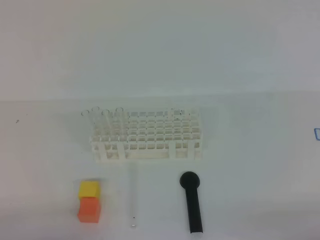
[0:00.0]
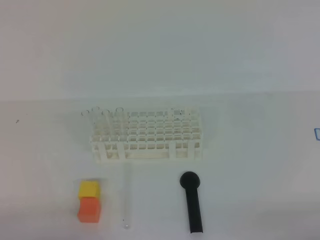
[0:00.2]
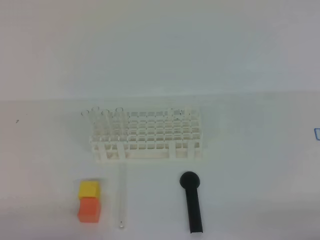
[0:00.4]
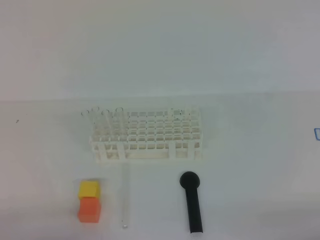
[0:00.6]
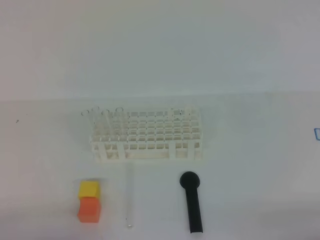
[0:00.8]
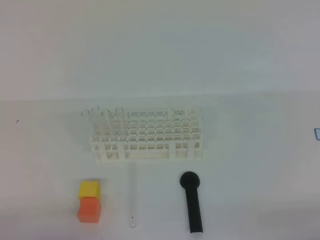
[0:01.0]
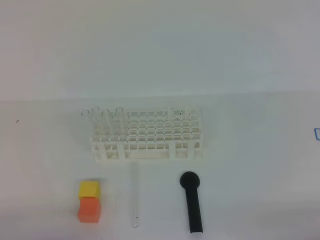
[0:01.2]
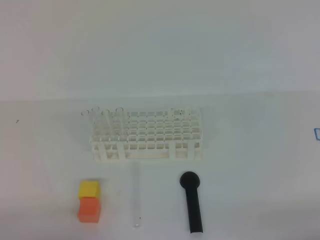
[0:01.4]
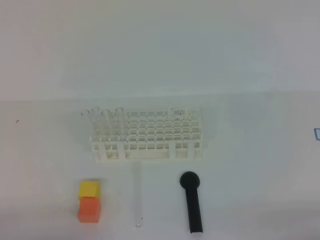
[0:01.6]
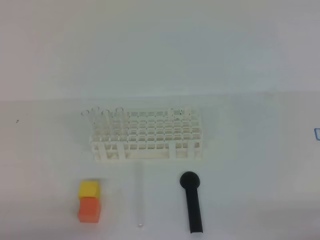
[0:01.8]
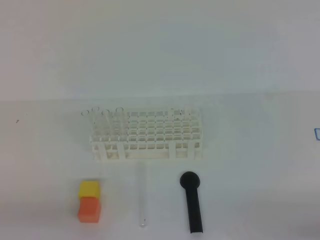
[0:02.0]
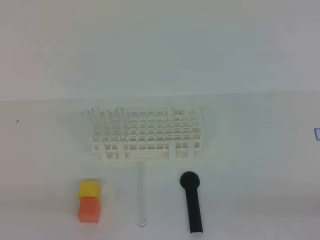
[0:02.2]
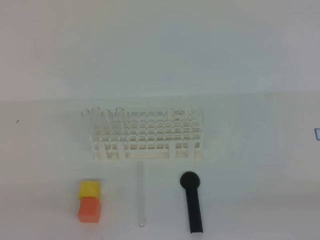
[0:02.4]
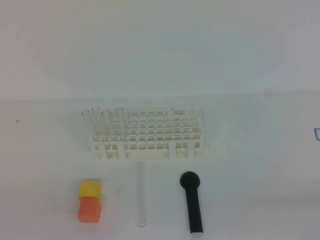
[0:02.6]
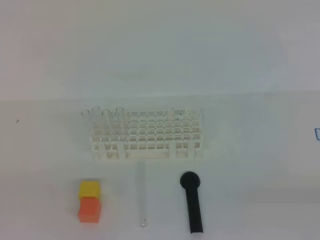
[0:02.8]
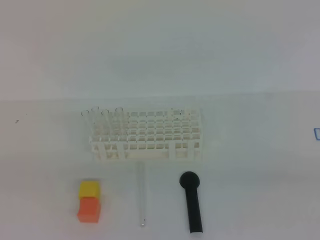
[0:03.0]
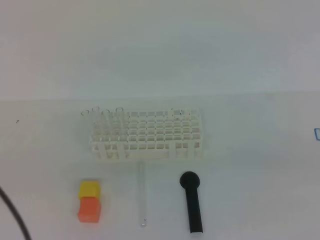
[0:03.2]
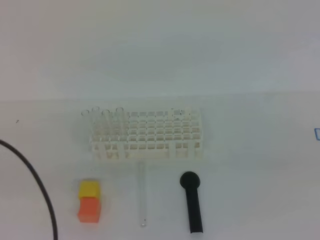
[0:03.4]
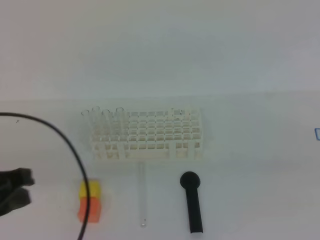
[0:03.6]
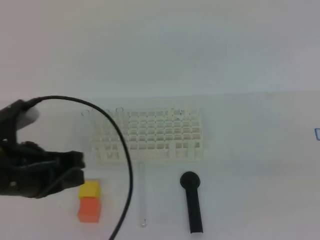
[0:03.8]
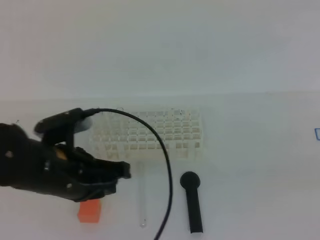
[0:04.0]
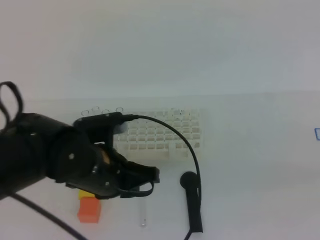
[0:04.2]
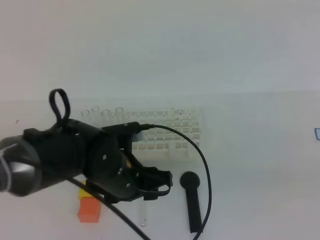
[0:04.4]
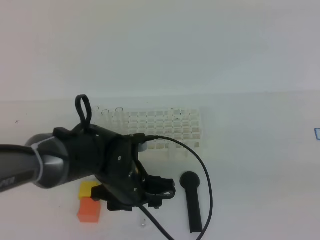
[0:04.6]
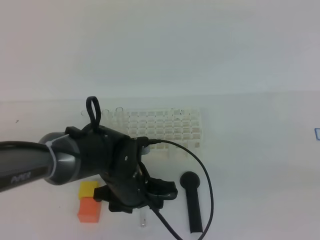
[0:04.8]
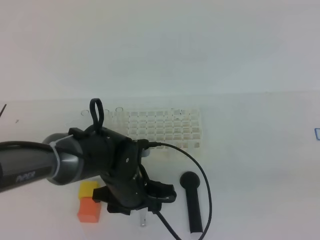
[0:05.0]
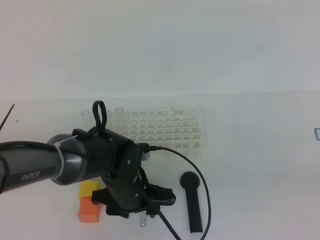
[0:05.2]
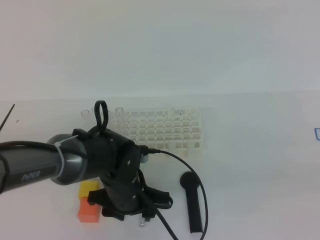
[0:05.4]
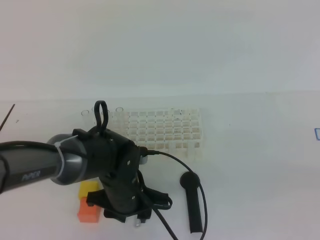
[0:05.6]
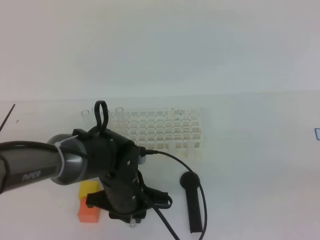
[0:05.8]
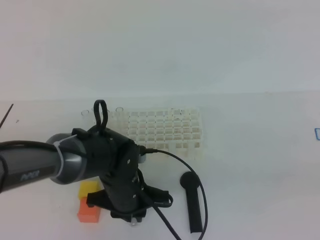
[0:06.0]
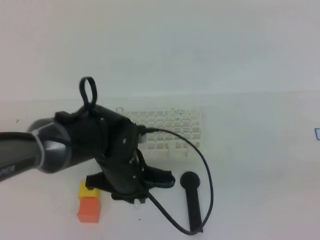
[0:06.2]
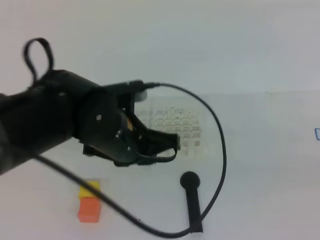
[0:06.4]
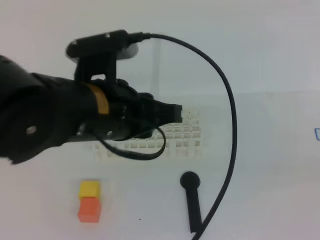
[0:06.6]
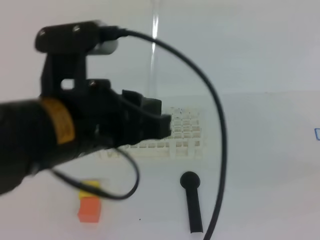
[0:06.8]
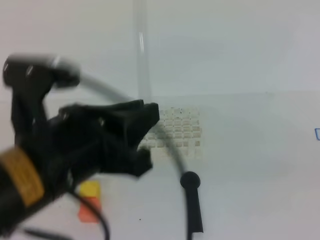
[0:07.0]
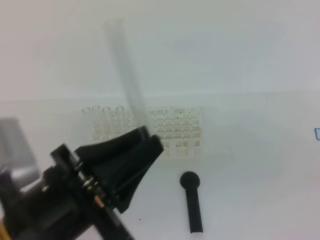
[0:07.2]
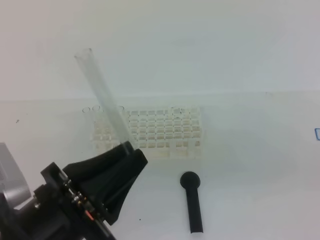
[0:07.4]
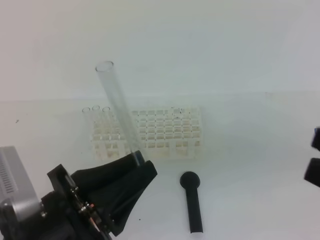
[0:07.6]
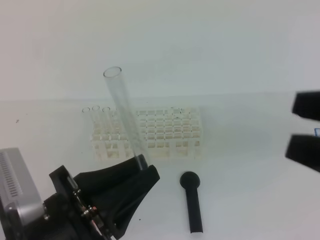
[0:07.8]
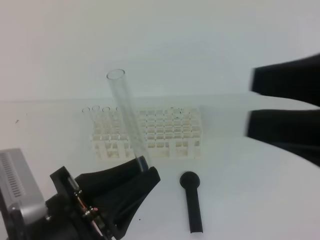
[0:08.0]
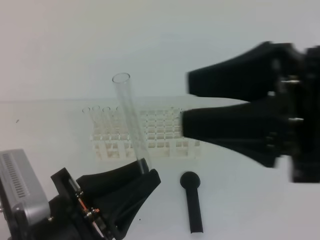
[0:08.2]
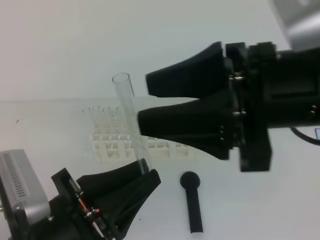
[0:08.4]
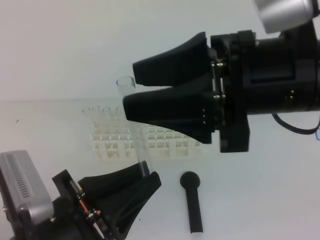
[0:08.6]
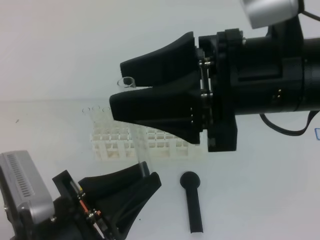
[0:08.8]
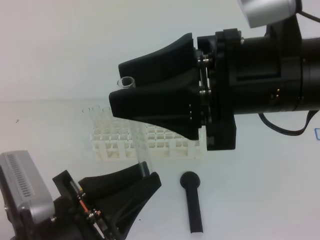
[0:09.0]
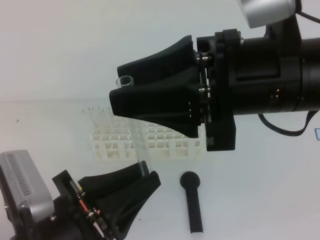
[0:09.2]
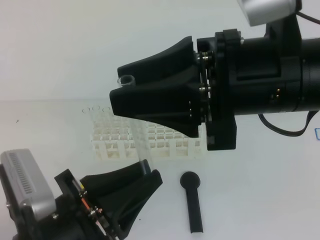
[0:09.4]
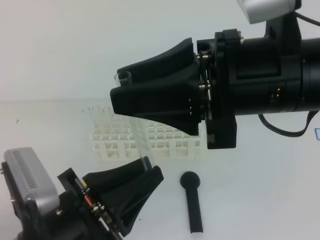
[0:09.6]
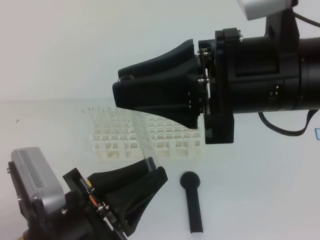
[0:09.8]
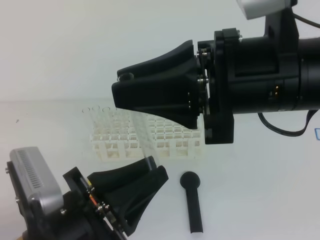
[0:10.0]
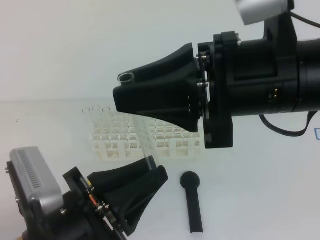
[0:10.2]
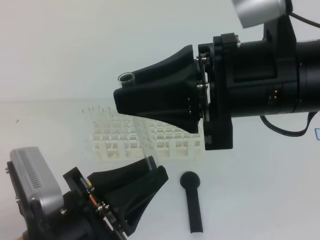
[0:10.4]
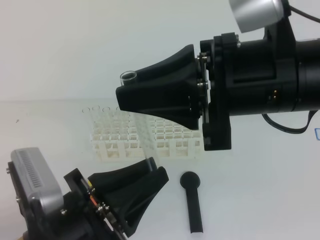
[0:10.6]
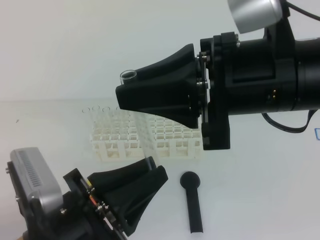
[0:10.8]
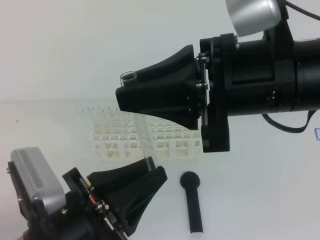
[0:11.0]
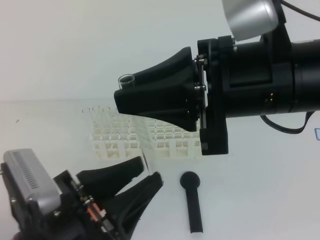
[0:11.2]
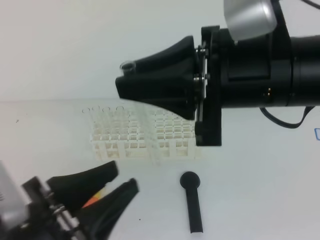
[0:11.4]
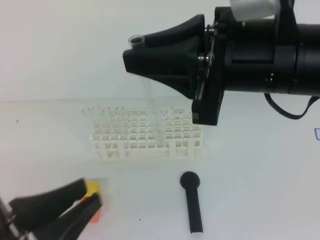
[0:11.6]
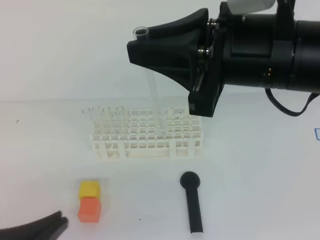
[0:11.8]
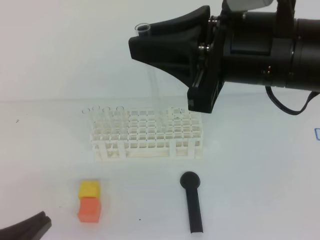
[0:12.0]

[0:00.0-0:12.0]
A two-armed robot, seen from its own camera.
0:00.0 to 0:01.6: Neither gripper changes place.
0:03.0 to 0:04.4: The right gripper changes place by approximately 5 cm. The left gripper shifts roughly 30 cm to the right, forward and downward, and opens its fingers.
0:04.4 to 0:06.0: The left gripper shifts some 5 cm downward, and closes.
0:06.0 to 0:07.6: The right gripper is displaced to the left by roughly 5 cm, and opens. The left gripper is displaced backward, upward and to the left by some 25 cm.
0:07.6 to 0:09.0: The right gripper heads to the left and forward, covering about 20 cm.
0:09.0 to 0:10.4: The right gripper closes.
0:10.4 to 0:12.0: The left gripper goes about 10 cm to the left, and opens, then closes once more.

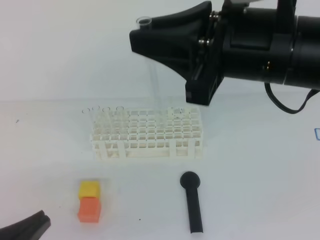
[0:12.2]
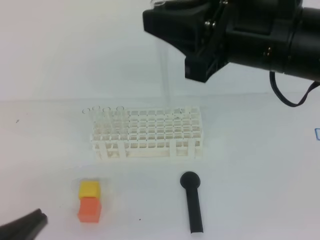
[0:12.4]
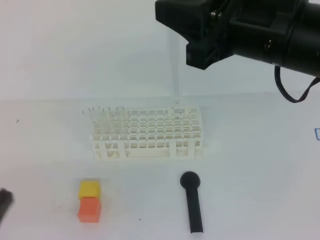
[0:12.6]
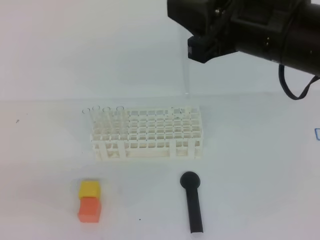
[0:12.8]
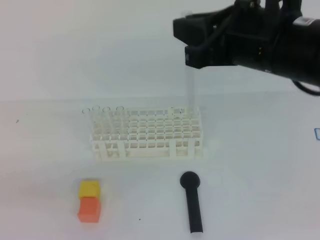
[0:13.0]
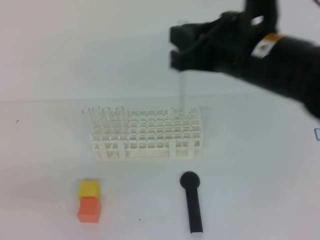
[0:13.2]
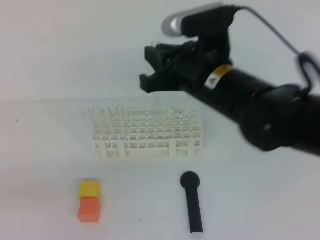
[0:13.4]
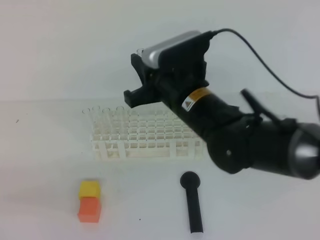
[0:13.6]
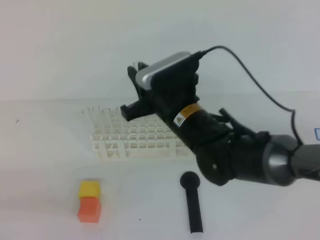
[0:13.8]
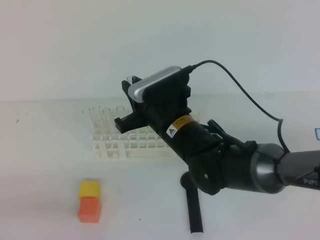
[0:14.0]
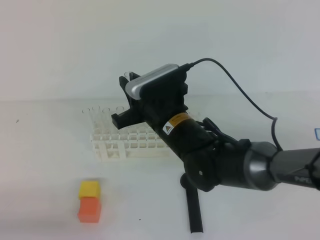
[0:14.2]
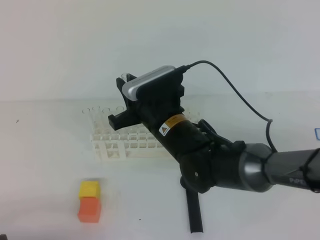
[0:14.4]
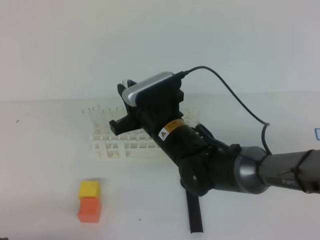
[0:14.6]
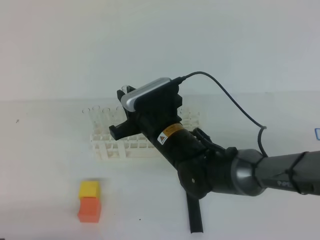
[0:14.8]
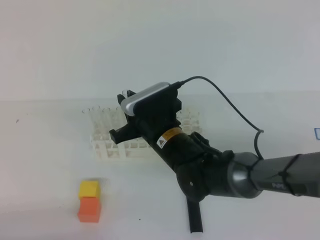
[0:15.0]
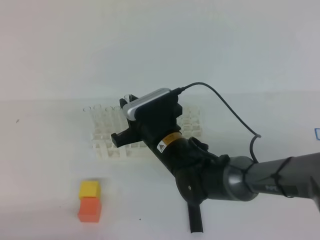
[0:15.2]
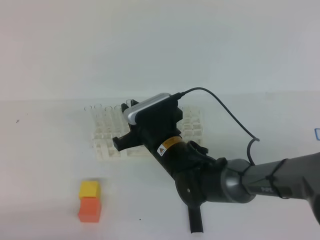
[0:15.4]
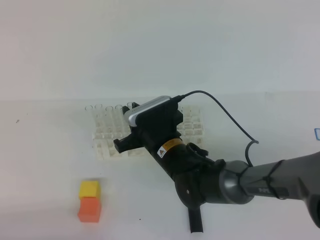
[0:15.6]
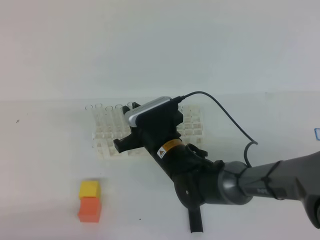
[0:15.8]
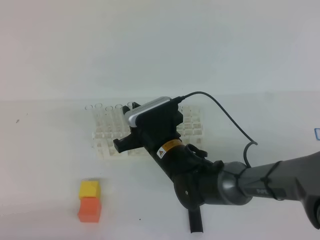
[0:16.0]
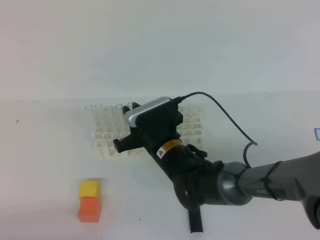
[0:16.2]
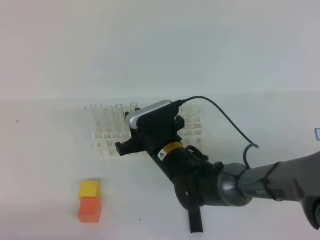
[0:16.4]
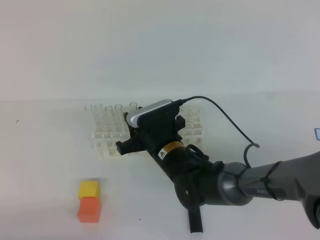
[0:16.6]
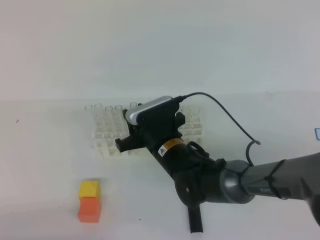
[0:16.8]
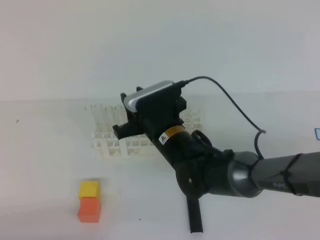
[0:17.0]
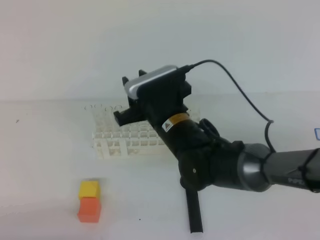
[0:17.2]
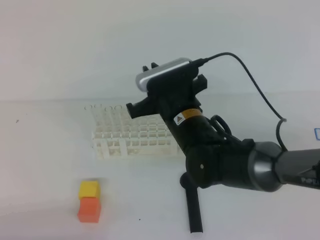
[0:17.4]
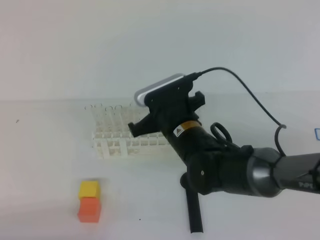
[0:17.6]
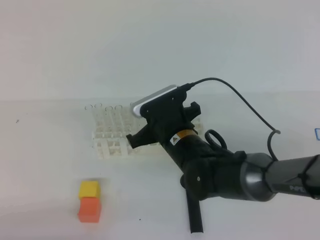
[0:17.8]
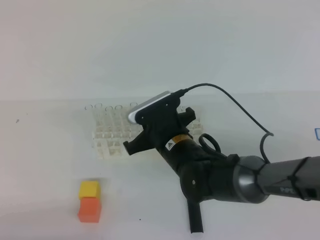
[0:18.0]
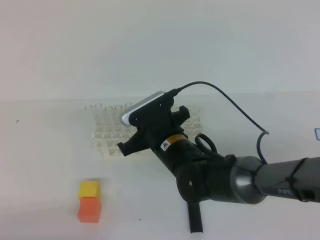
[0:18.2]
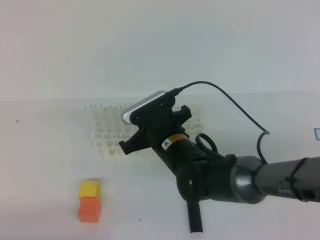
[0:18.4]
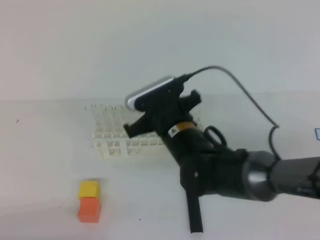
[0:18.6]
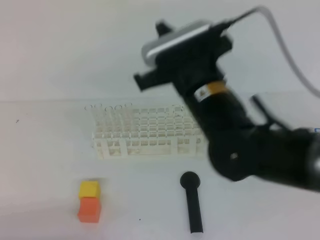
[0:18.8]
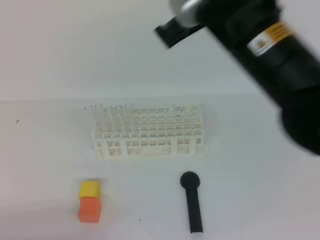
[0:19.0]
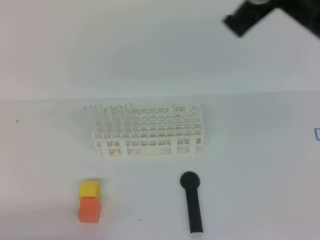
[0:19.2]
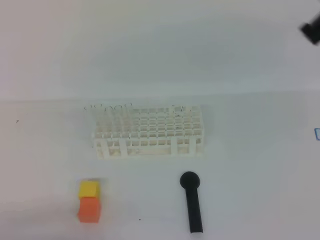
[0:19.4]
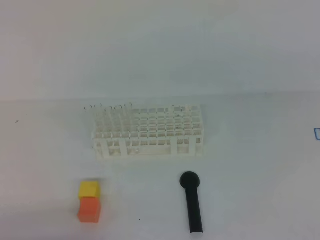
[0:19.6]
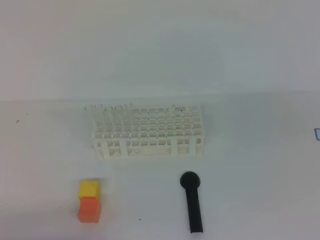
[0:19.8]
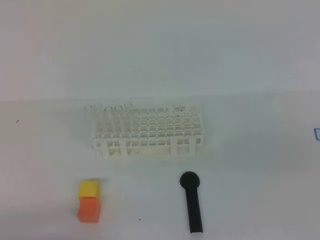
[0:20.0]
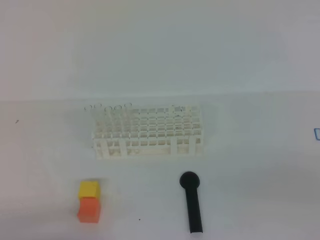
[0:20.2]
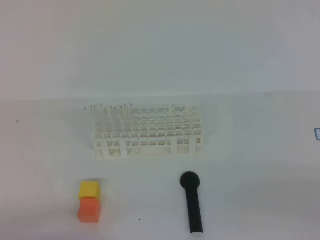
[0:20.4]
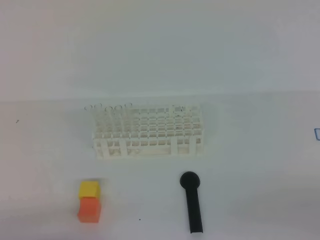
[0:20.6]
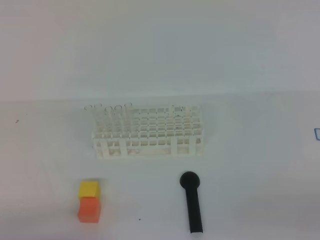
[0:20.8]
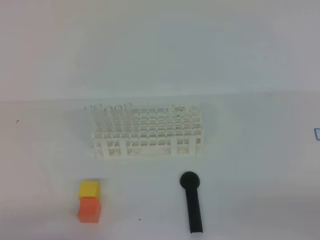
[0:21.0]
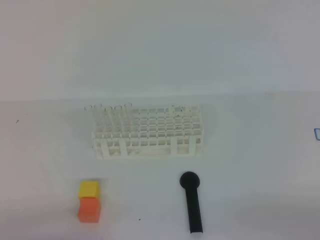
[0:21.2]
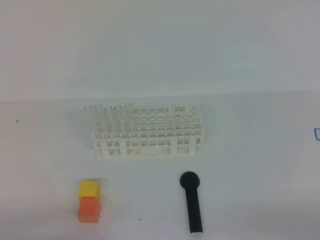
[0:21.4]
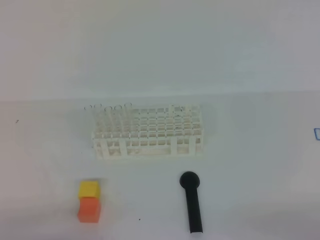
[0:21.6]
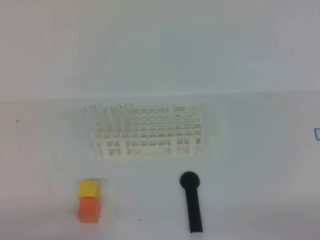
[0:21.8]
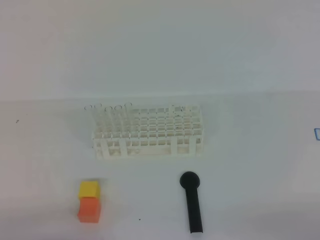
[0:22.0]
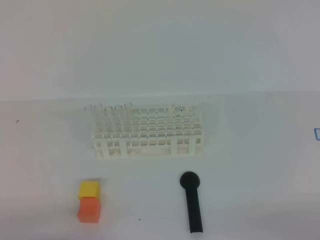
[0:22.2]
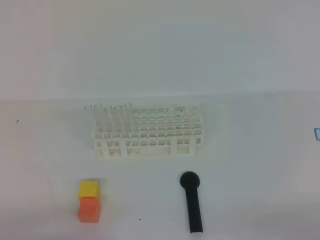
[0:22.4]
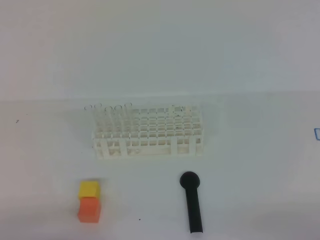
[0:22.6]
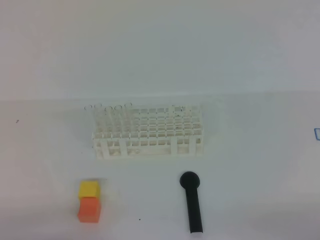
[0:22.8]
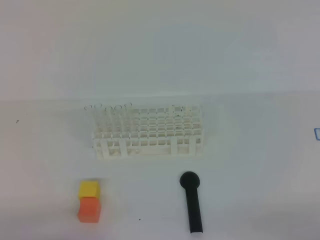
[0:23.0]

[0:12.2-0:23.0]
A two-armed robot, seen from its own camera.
0:12.2 to 0:13.8: The right gripper shifts approximately 20 cm downward, forward and to the left.
0:13.8 to 0:15.2: Both grippers move downward, approximately 10 cm.
0:15.2 to 0:16.8: The right gripper opens.
0:16.8 to 0:18.4: The right gripper closes up.
0:18.4 to 0:20.0: The right gripper heads to the right and backward, covering approximately 35 cm.
